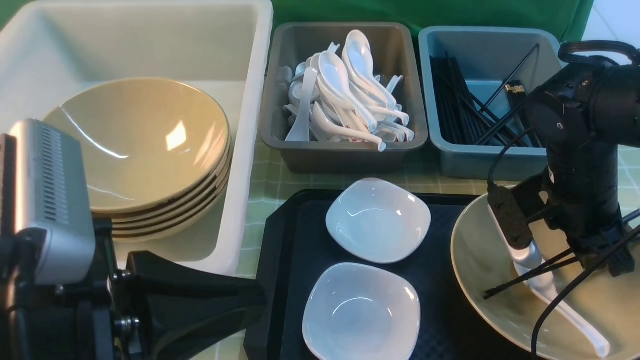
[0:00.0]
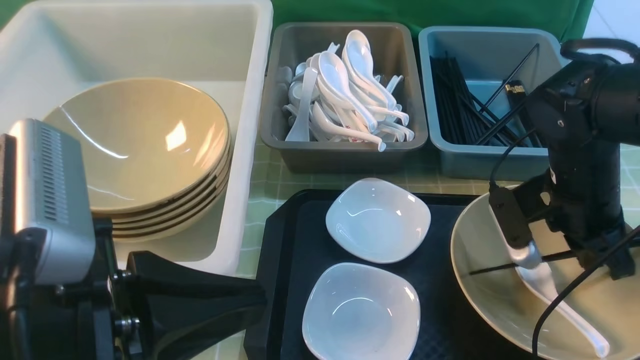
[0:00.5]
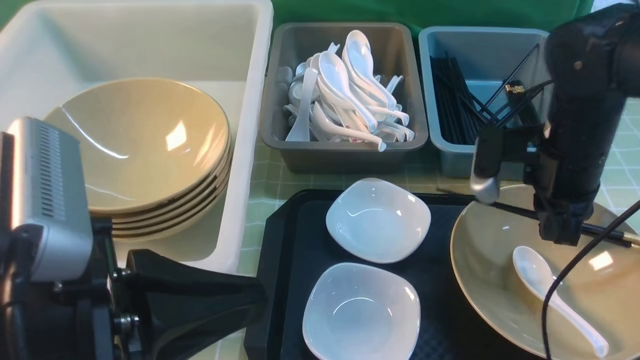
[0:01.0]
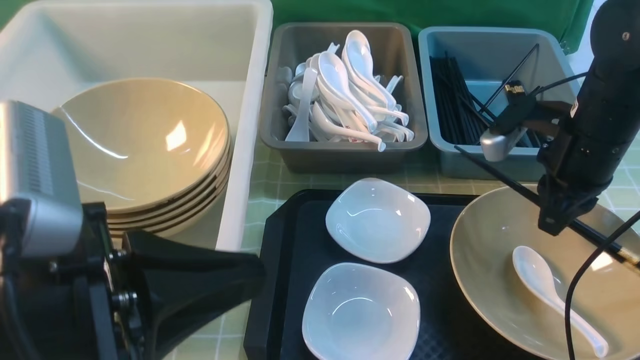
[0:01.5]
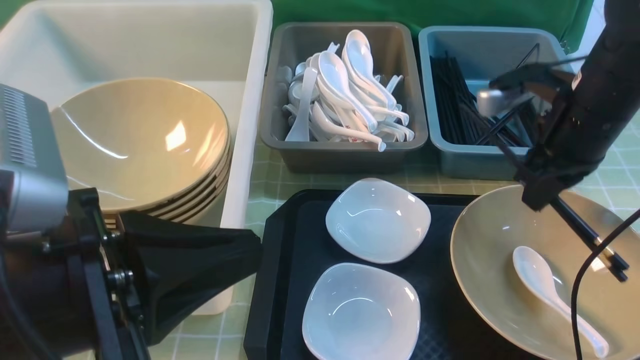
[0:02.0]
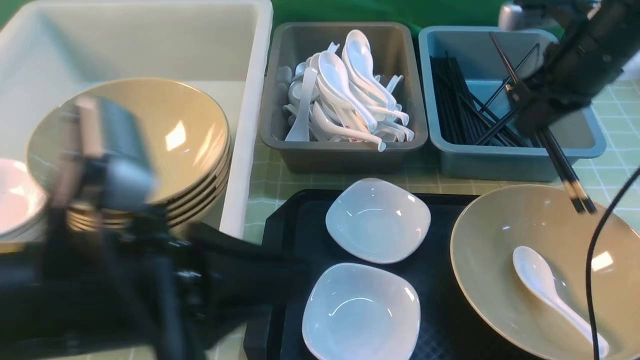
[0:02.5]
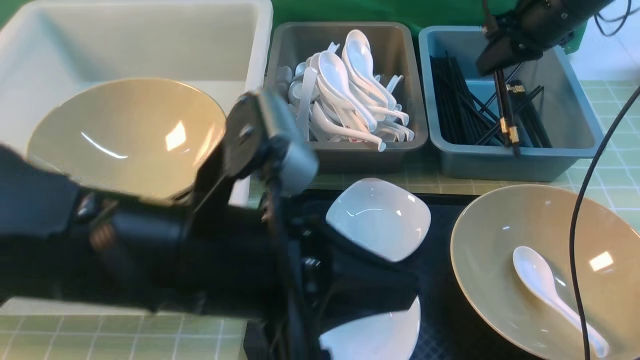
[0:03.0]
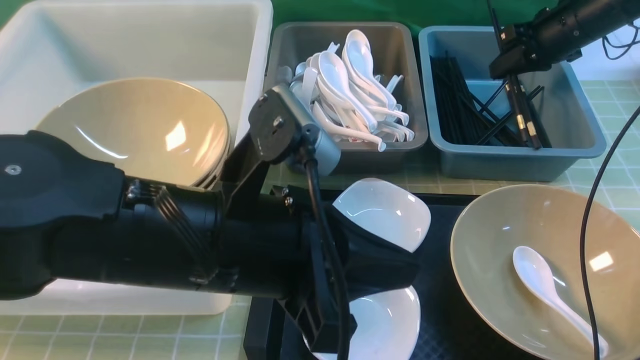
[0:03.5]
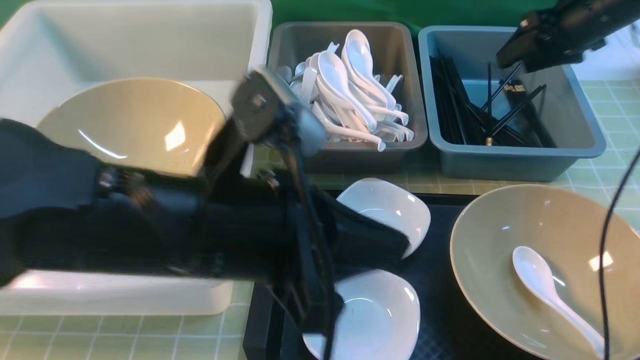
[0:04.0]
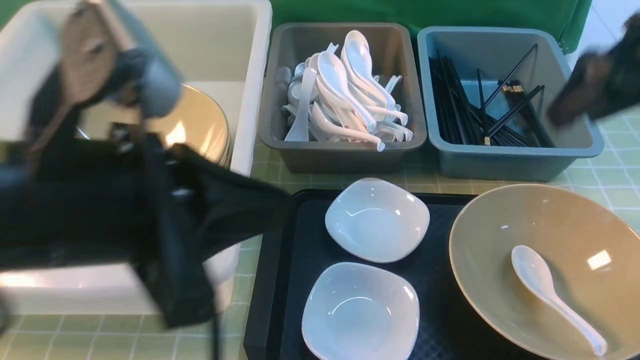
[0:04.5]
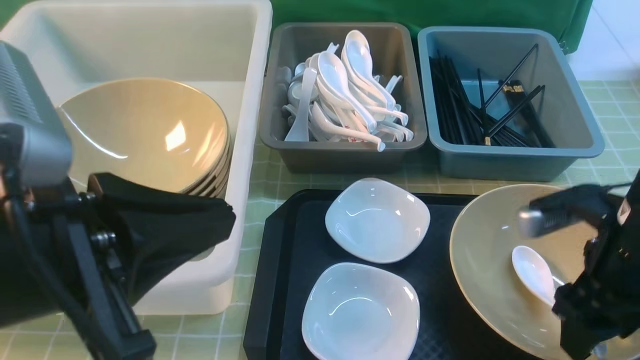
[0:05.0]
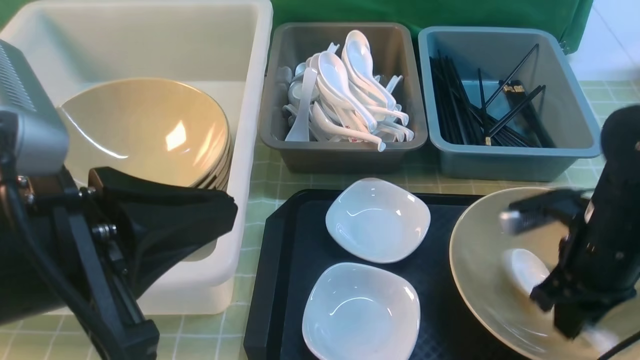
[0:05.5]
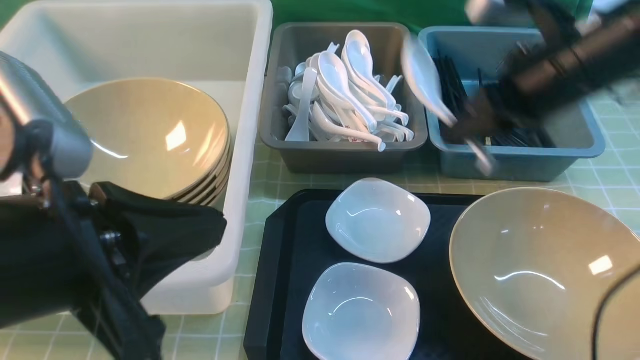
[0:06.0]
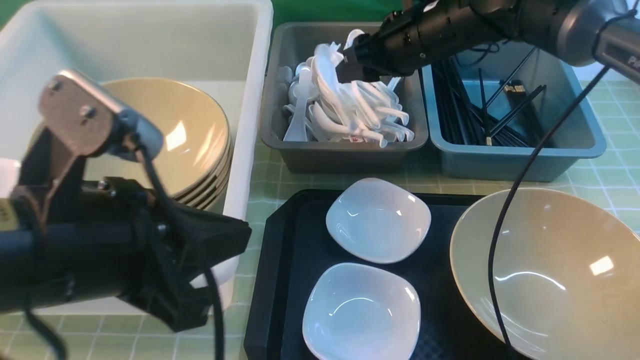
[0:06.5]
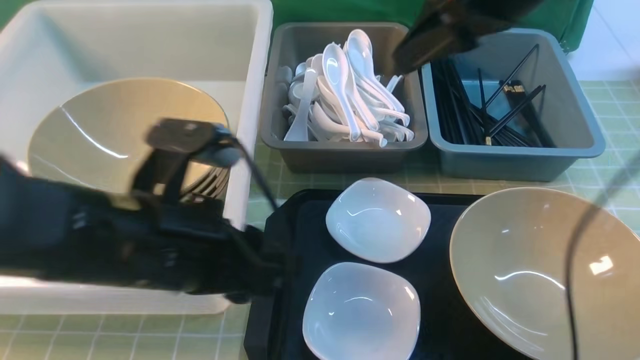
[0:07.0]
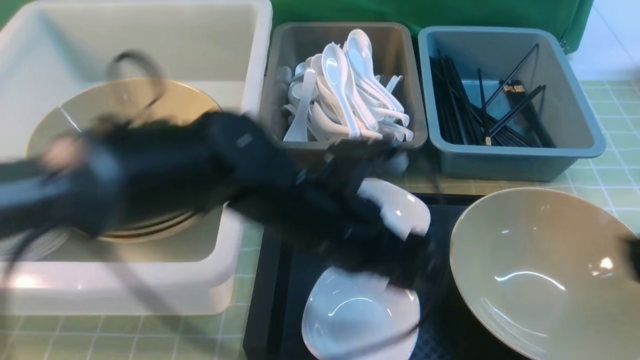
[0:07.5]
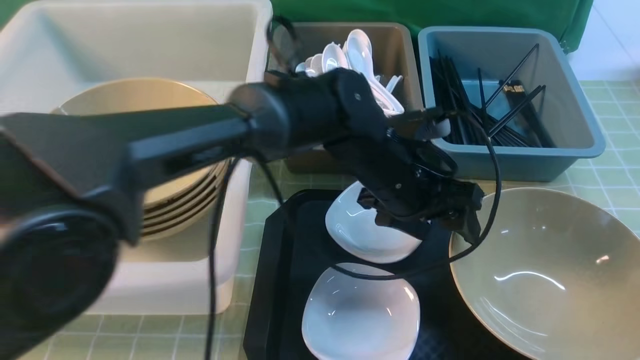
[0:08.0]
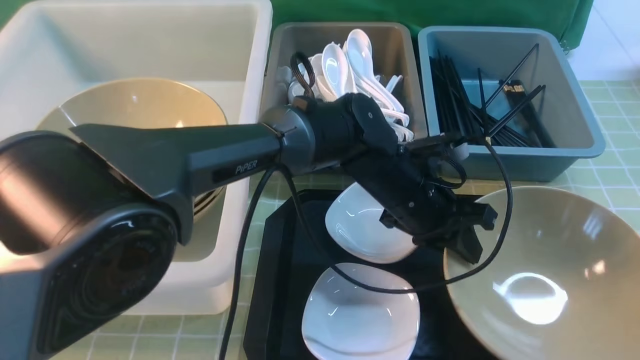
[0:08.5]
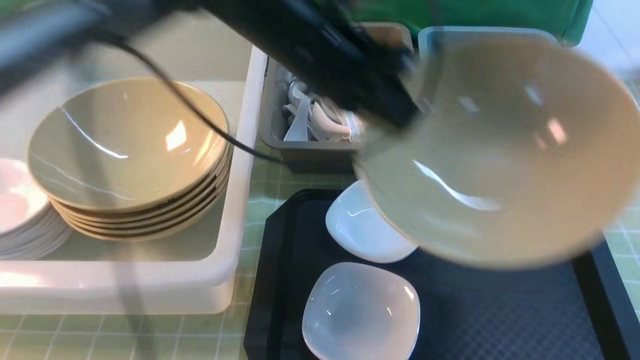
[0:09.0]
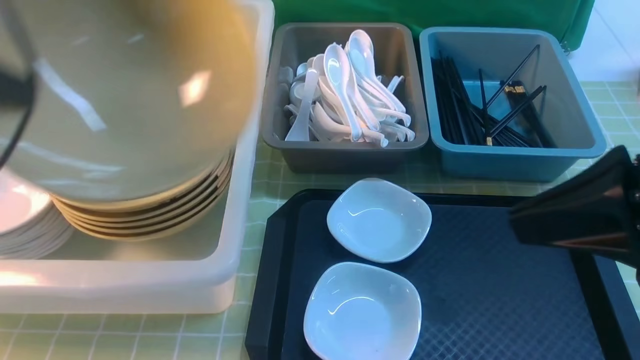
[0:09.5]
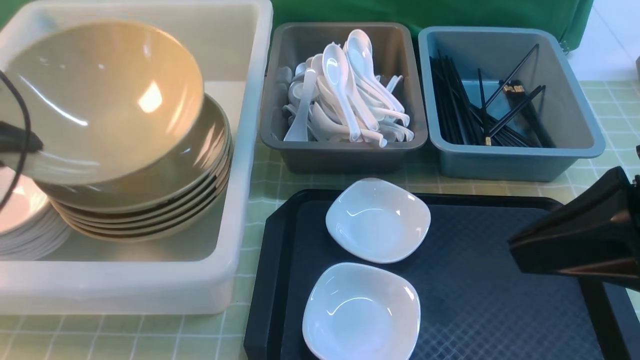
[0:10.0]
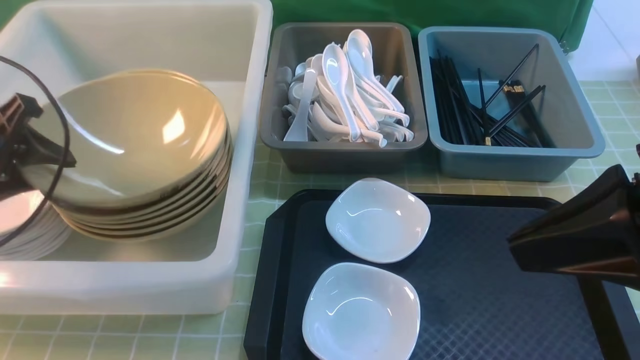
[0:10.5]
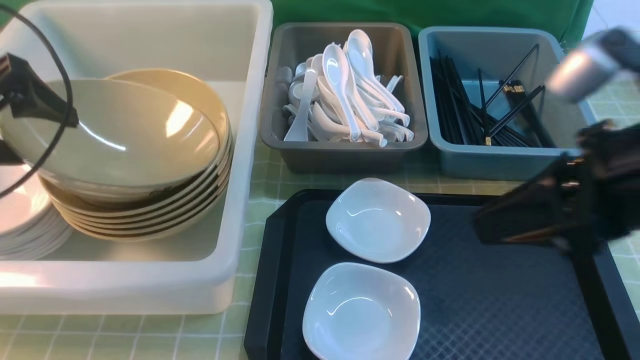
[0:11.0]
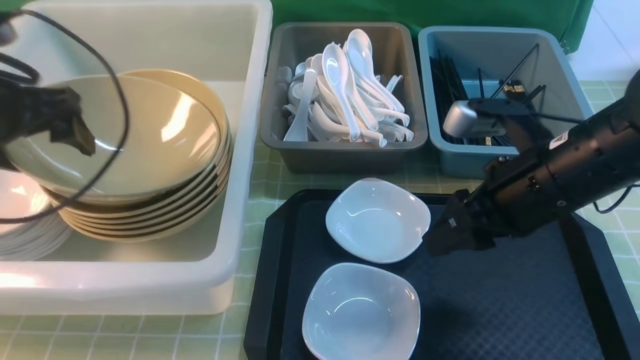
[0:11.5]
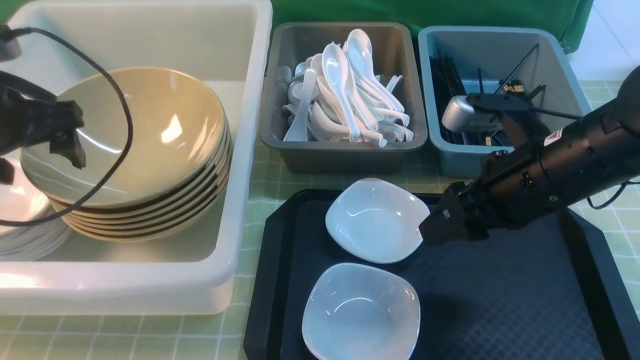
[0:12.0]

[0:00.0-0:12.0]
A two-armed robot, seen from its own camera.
Task of the whole recording: on green table put chopsticks spoon bowls plates into blue grey white boxes.
Step, 0:01.0 to 0:04.0: use the right arm to put the chopsticks into the small storage box on the right.
Step, 0:04.5 to 0:05.5: use the right arm to grab the soup spoon in the middle.
Step, 0:06.0 to 0:07.0: use the right arm to put the soup spoon into the small storage box in the middle.
Step, 0:07.5 to 0:08.5: use the left arm to grab the yellow noodle bowl on the left.
0:00.0 to 0:02.0: The right gripper goes some 10 cm upward.
0:02.0 to 0:04.0: The left gripper goes approximately 10 cm to the right and forward. The right gripper is displaced forward and to the right by roughly 15 cm, and opens.
0:04.0 to 0:06.0: The right gripper goes about 20 cm to the left and backward, and closes, while the left gripper goes roughly 10 cm to the left.
0:06.0 to 0:08.0: The left gripper moves to the right, forward and downward, some 35 cm, and opens its fingers; the right gripper is displaced backward by some 30 cm, and opens its fingers.
0:08.0 to 0:10.0: The right gripper travels forward and to the left by roughly 10 cm, and closes its fingers; the left gripper is displaced to the left by roughly 40 cm, and closes its fingers.
0:10.0 to 0:12.0: The right gripper is displaced forward and downward by approximately 20 cm, and opens up. Meanwhile the left gripper travels to the right by about 5 cm, and opens its fingers.

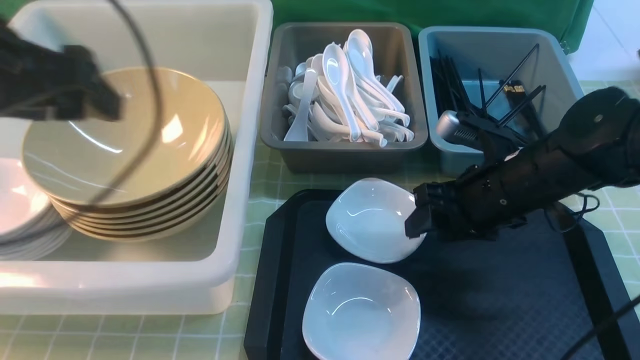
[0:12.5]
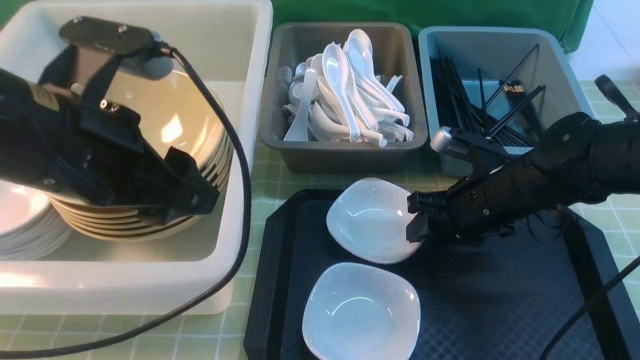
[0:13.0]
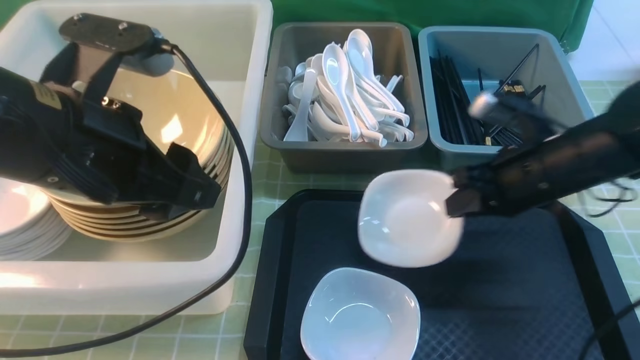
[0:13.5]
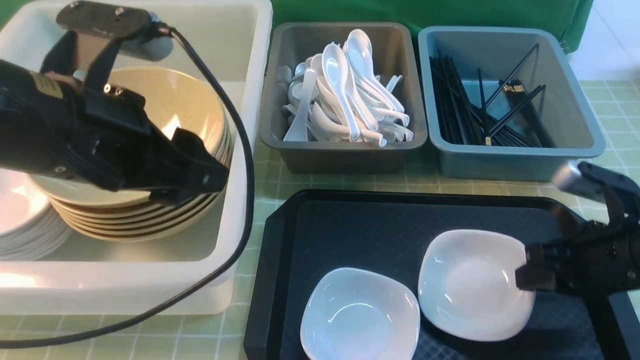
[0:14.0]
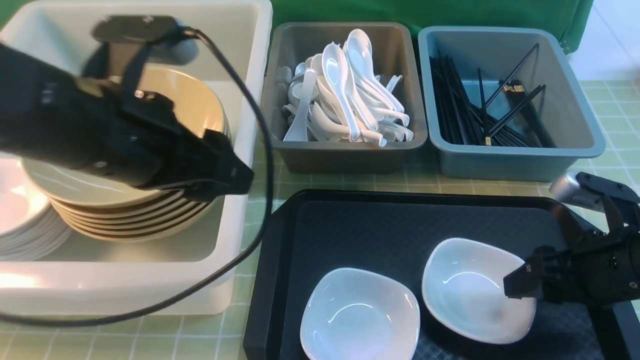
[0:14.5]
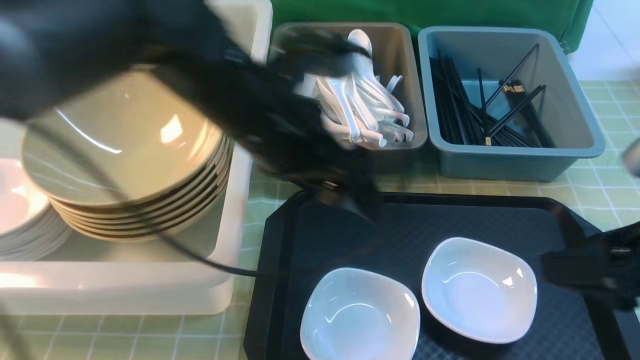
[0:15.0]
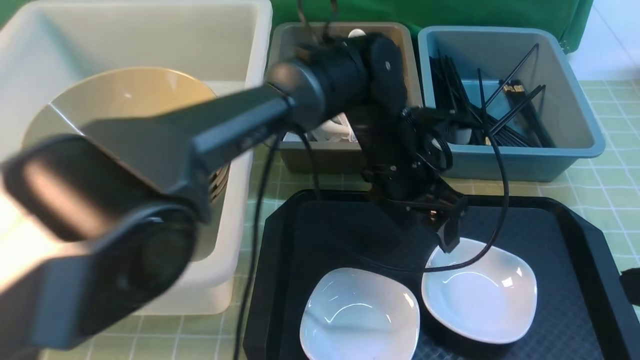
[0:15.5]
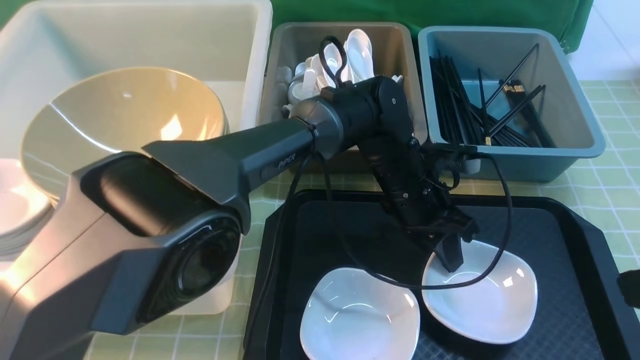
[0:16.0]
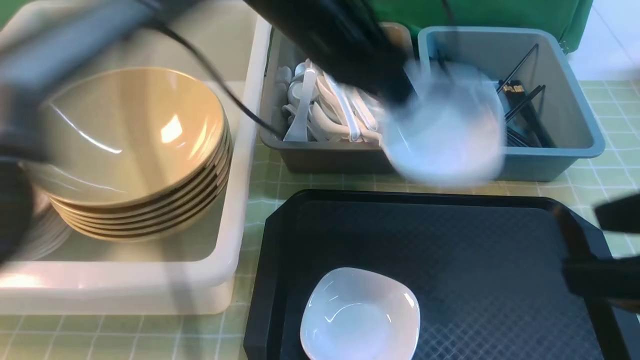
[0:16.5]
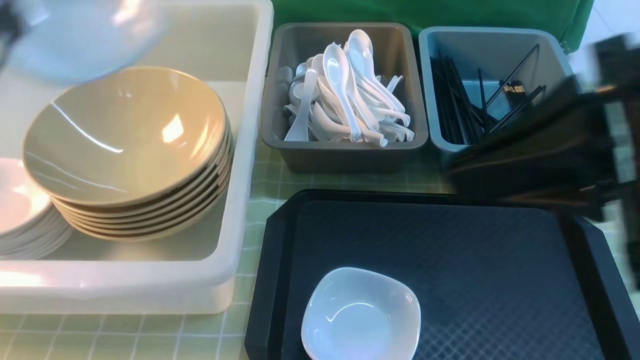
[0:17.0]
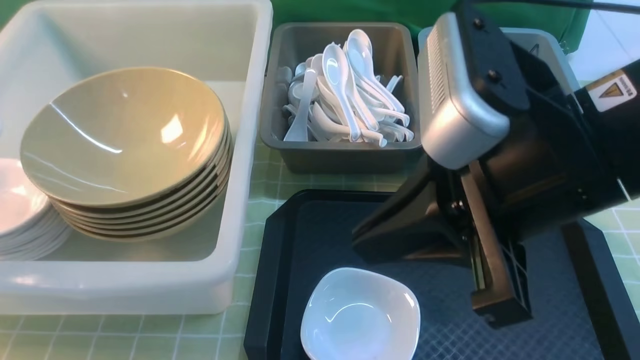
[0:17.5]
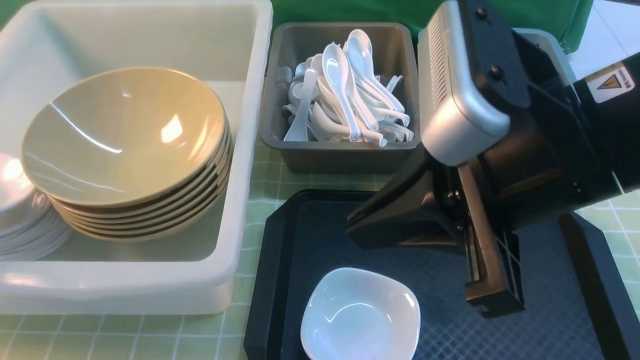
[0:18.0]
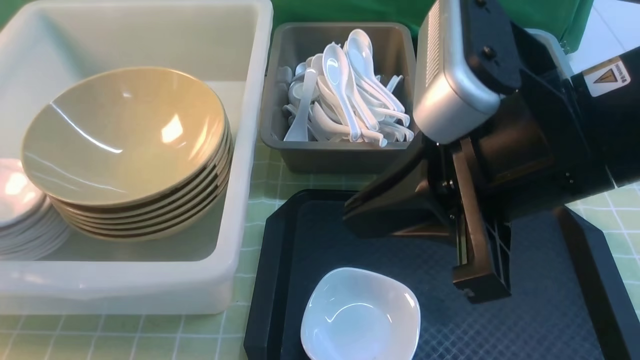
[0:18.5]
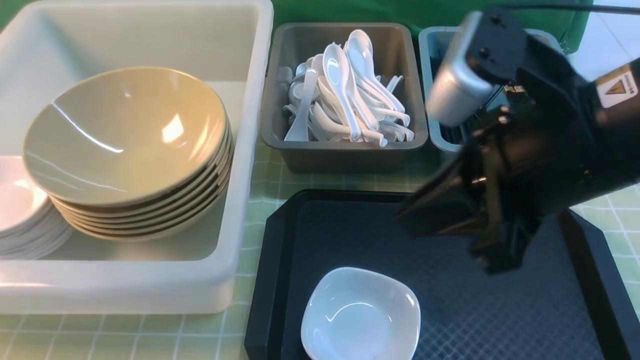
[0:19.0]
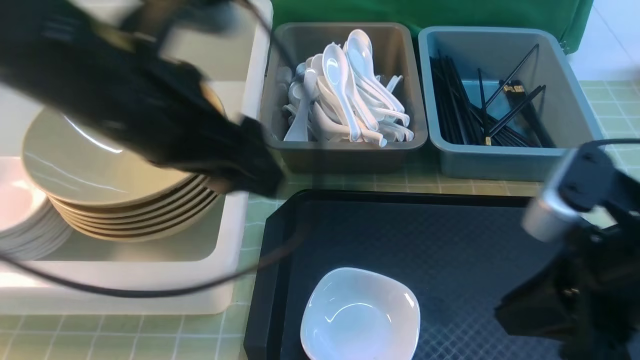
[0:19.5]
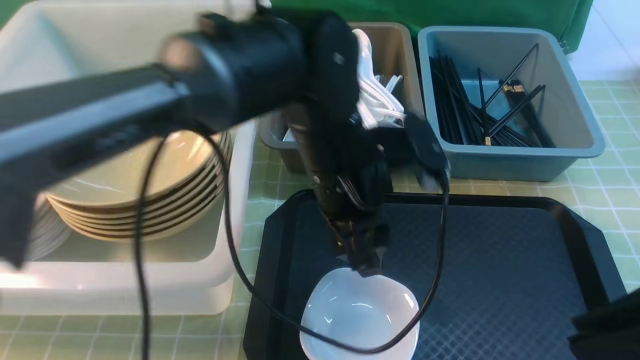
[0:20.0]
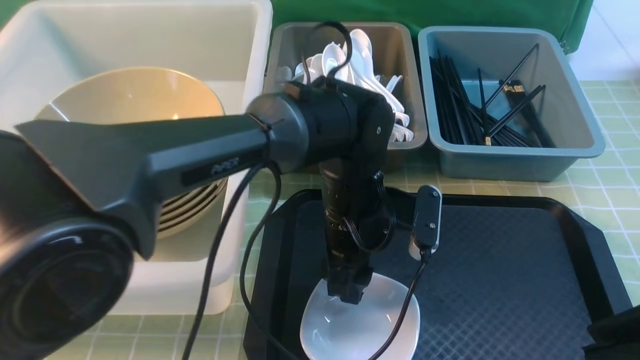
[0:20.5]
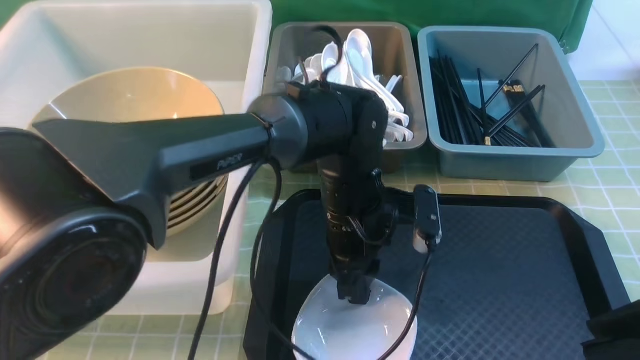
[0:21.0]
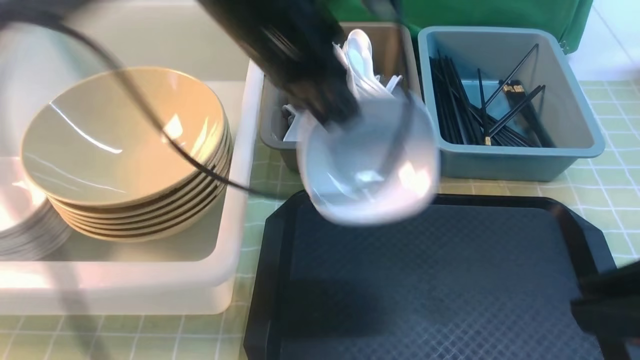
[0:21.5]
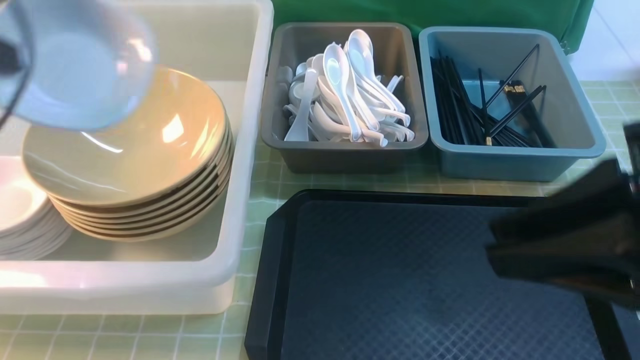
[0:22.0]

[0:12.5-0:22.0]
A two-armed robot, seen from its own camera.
Task of the whole recording: on green table put chopsticks spoon bowls plates into blue grey white boxes.
Step, 0:12.5 to 0:13.0: use the right arm to grab the plate.
Step, 0:13.5 to 0:14.5: use the right arm to put the plate on the tray.
Step, 0:15.0 to 0:16.0: use the left arm to grab the plate.
Step, 0:16.5 to 0:18.5: use the left arm to put the plate into the large storage box on the left.
Step, 0:19.5 to 0:21.0: use the left arm to grab the plate.
0:12.5 to 0:14.5: The left gripper moves to the right, approximately 10 cm. Meanwhile the right gripper goes roughly 15 cm to the right and backward, and closes and opens again.
0:14.5 to 0:16.5: The left gripper moves forward and to the right, approximately 15 cm, and closes. Meanwhile the right gripper moves upward and backward, roughly 20 cm.
0:16.5 to 0:18.0: The right gripper goes roughly 15 cm to the left and forward, and closes; the left gripper is displaced to the left by roughly 35 cm.
0:18.0 to 0:20.0: The right gripper travels to the right and backward by roughly 15 cm. The left gripper is displaced to the right by some 40 cm, and opens.
0:20.0 to 0:22.0: The right gripper changes place by some 5 cm. The left gripper moves to the left and upward, about 35 cm, and closes its fingers.
